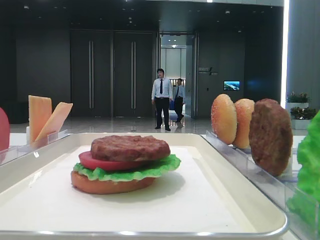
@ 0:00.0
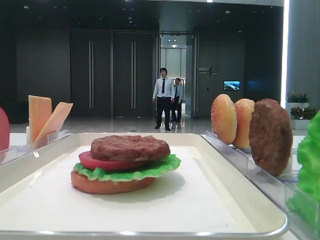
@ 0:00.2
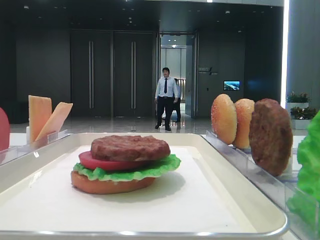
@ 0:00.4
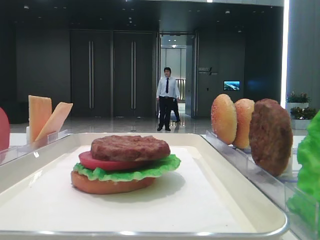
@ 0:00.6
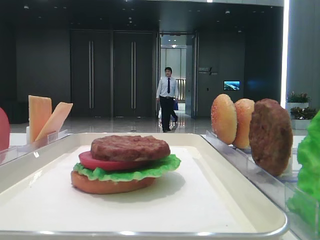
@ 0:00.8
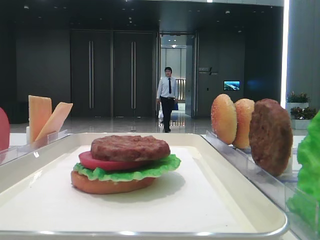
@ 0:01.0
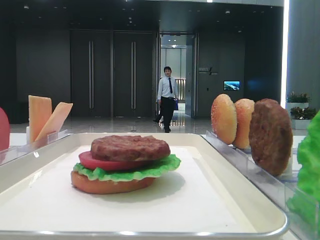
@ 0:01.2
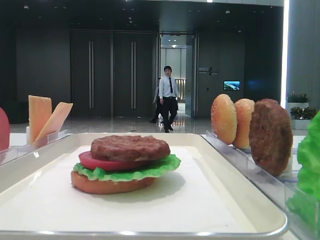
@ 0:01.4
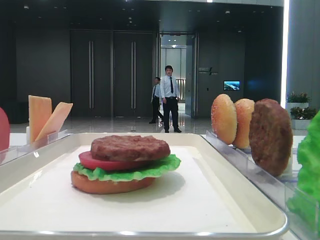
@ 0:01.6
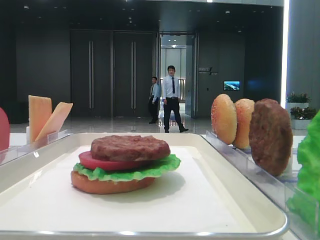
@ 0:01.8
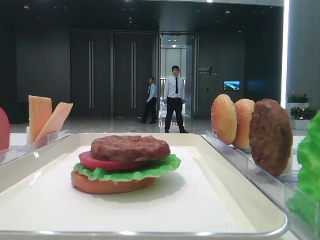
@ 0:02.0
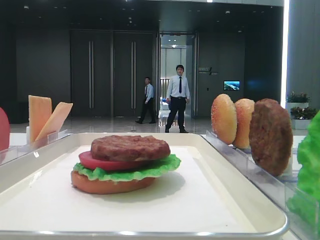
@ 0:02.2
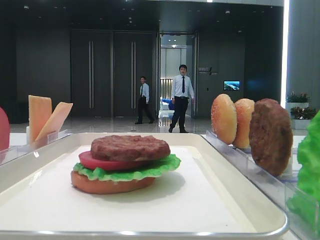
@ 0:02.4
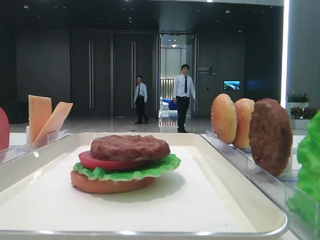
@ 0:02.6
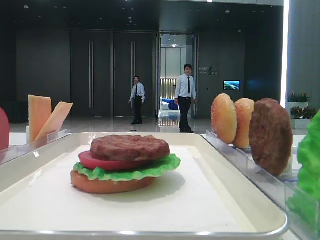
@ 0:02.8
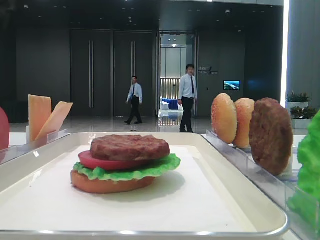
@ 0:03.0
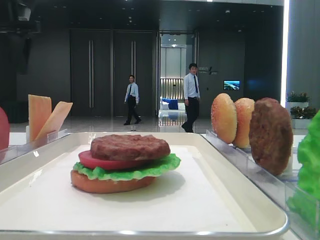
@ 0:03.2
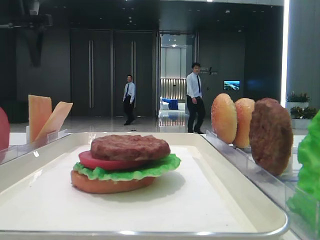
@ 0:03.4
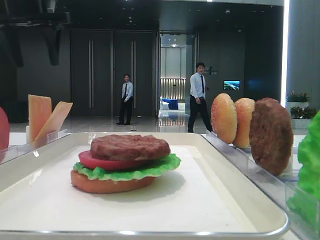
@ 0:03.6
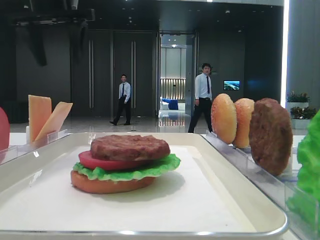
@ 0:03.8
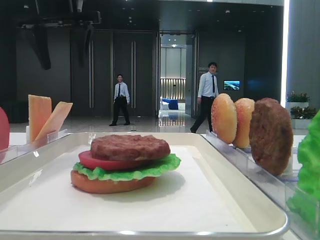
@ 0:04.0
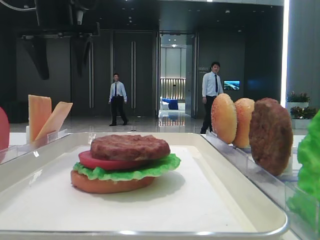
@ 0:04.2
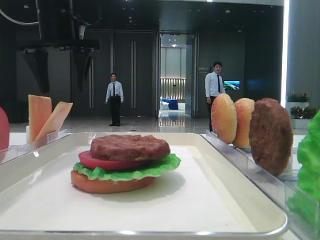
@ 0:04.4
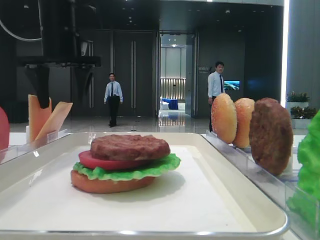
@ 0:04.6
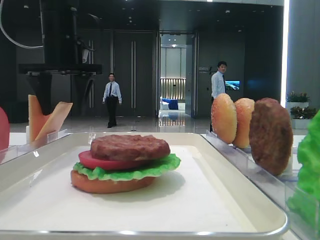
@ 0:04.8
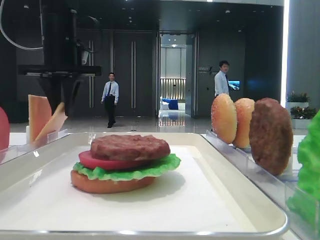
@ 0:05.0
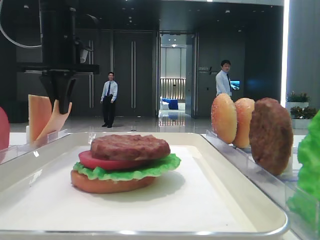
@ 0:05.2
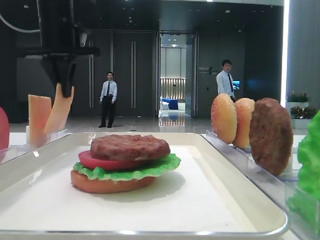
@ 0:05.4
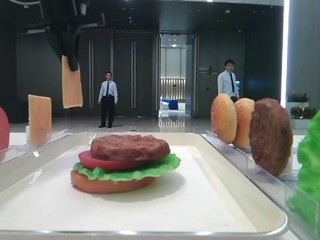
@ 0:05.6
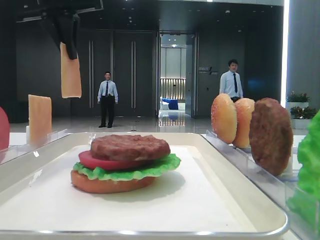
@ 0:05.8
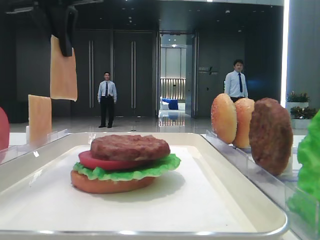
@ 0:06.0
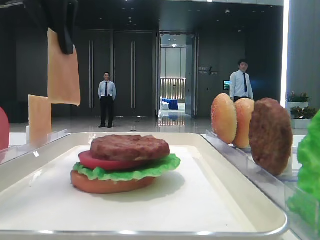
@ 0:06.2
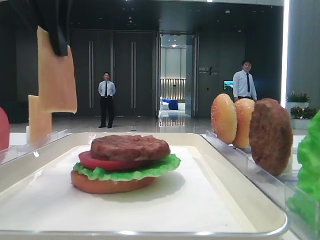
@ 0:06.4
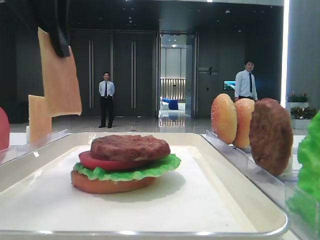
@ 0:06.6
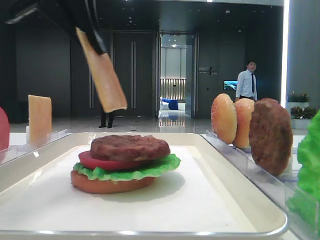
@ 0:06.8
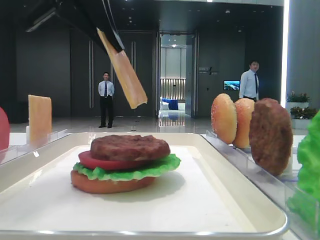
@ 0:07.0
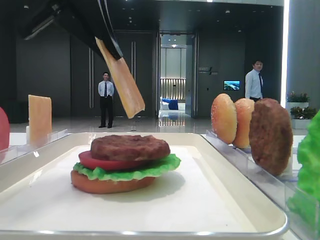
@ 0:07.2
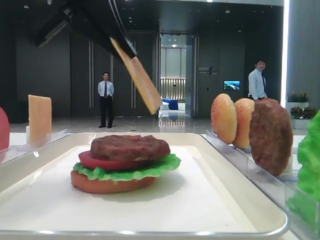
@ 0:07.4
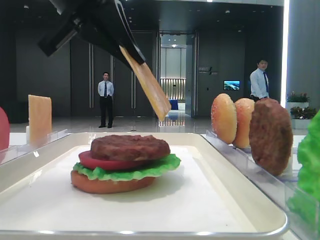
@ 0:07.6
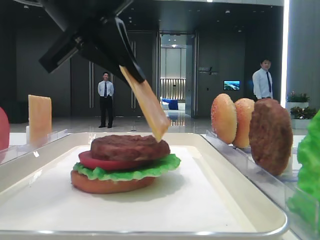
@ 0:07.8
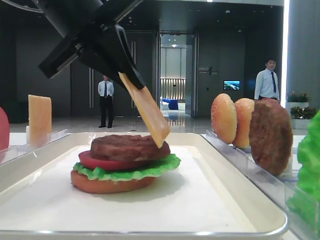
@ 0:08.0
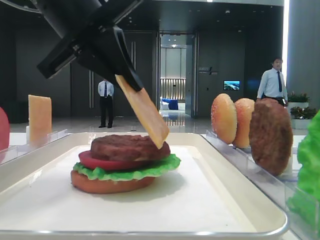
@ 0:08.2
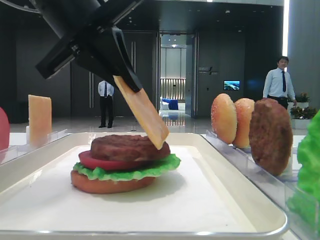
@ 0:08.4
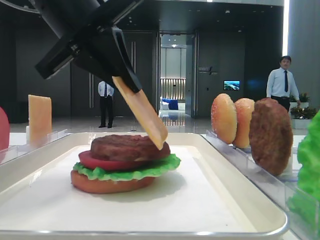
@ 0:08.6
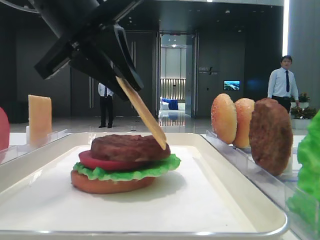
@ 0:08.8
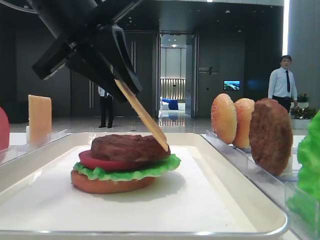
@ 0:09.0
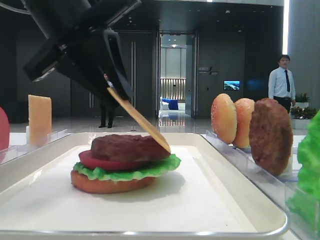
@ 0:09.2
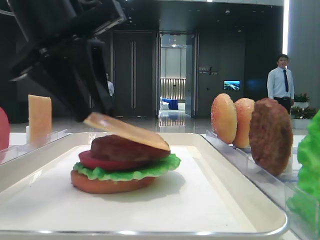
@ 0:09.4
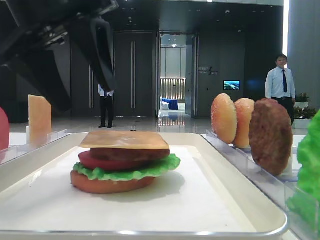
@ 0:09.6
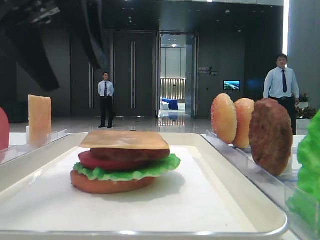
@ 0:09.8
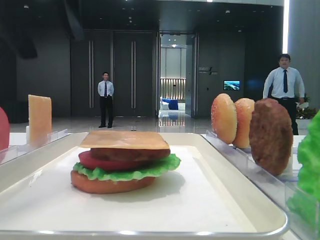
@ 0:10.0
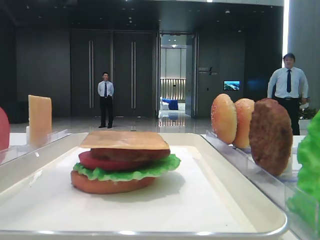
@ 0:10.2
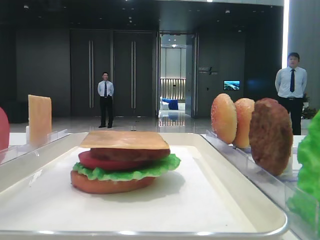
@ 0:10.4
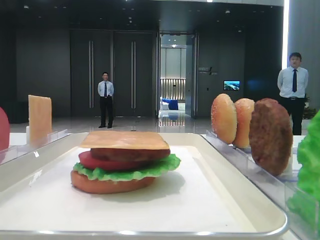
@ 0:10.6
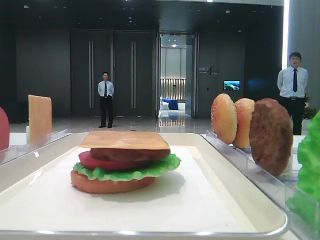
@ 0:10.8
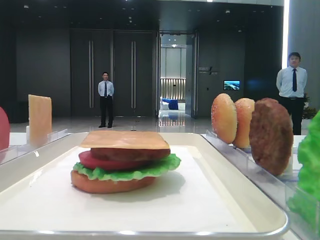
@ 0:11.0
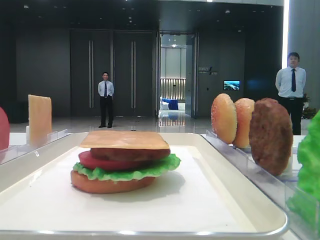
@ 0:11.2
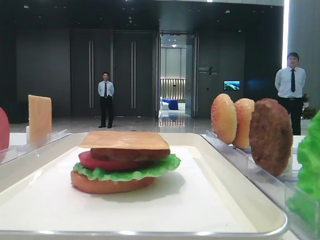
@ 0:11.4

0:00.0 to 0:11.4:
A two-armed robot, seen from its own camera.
Step, 0:00.0 to 0:05.0: Pick up the cheese slice with the left hand.
Step, 0:05.2 to 0:09.4: Place the cheese slice on the patty with the left hand.
0:01.4 to 0:02.8: The left gripper moves forward, roughly 30 cm.
0:02.8 to 0:04.2: The left gripper is displaced forward and to the right by approximately 20 cm.
0:04.2 to 0:05.6: The left gripper closes its fingers.
0:05.6 to 0:07.2: The left gripper shifts approximately 15 cm backward.
0:07.2 to 0:08.6: The grippers stay close to where they were, moving slightly.
0:08.6 to 0:10.0: The left gripper heads upward and to the left, covering about 10 cm, and opens.
0:10.0 to 0:11.4: The left gripper goes about 20 cm to the left.

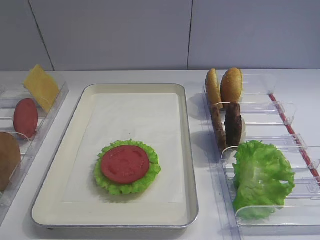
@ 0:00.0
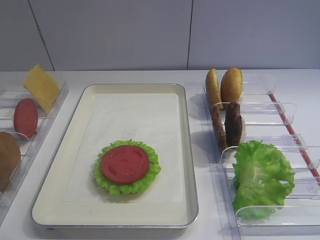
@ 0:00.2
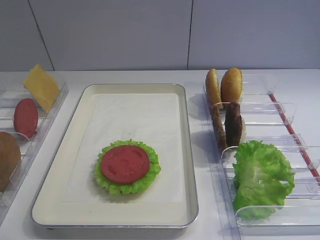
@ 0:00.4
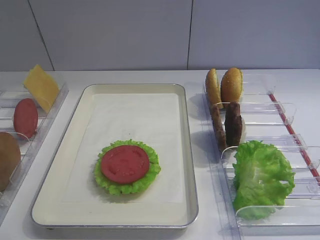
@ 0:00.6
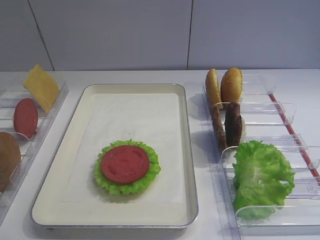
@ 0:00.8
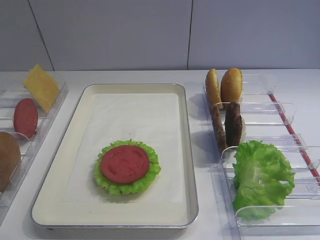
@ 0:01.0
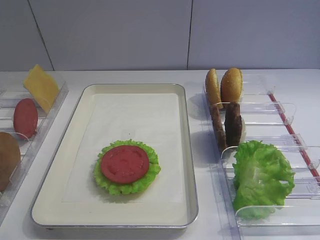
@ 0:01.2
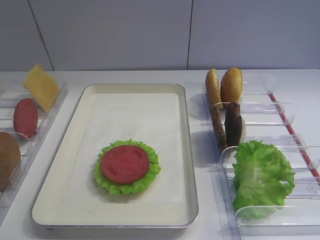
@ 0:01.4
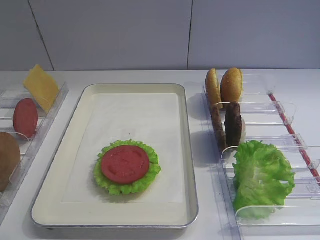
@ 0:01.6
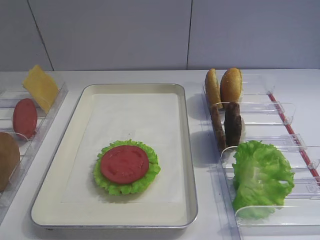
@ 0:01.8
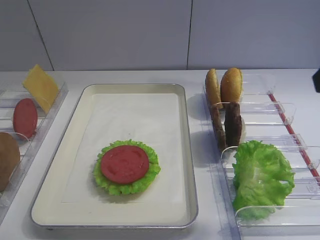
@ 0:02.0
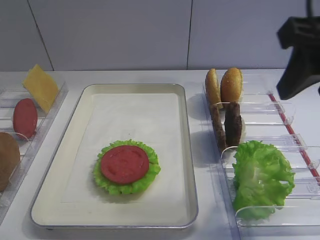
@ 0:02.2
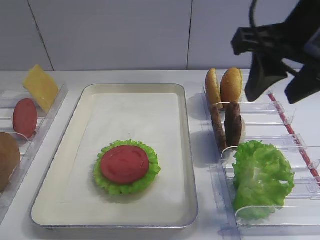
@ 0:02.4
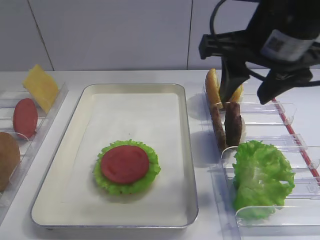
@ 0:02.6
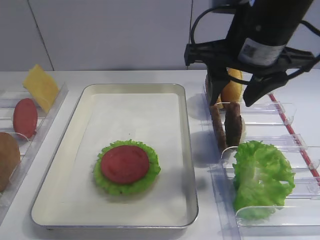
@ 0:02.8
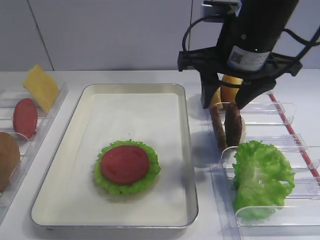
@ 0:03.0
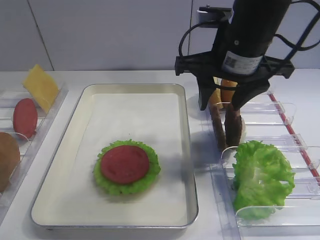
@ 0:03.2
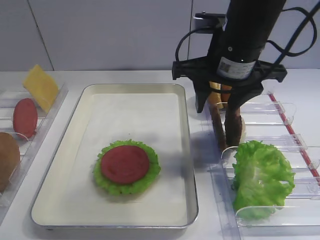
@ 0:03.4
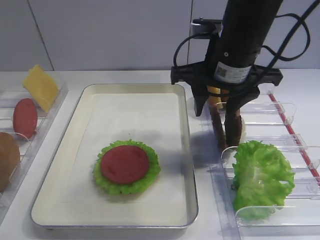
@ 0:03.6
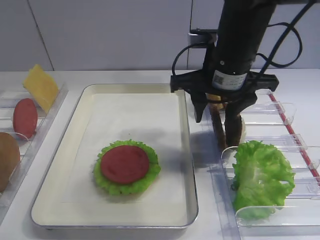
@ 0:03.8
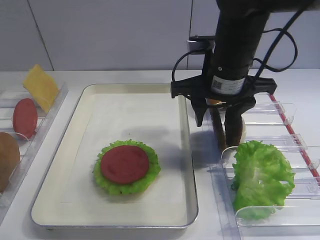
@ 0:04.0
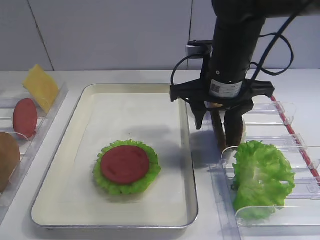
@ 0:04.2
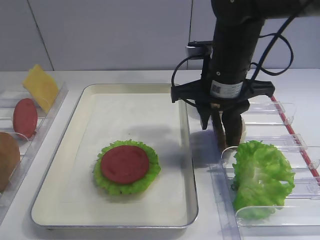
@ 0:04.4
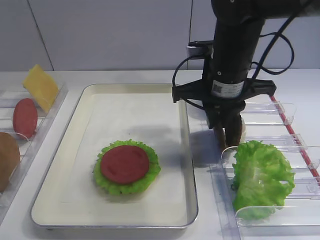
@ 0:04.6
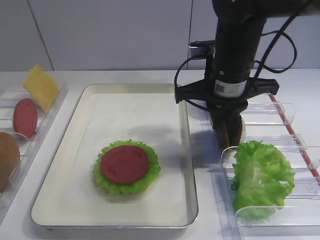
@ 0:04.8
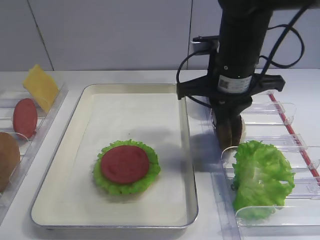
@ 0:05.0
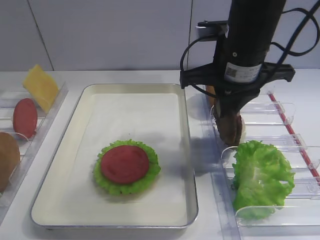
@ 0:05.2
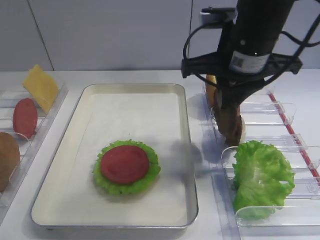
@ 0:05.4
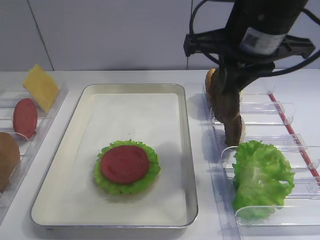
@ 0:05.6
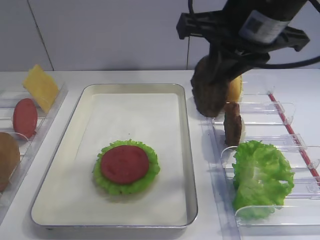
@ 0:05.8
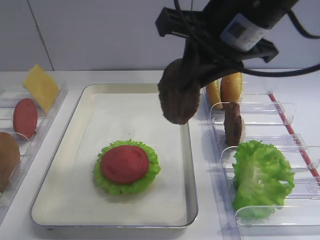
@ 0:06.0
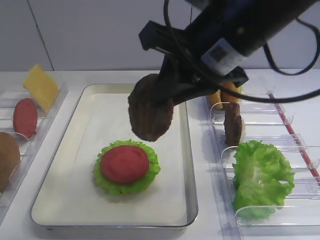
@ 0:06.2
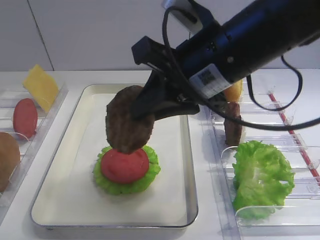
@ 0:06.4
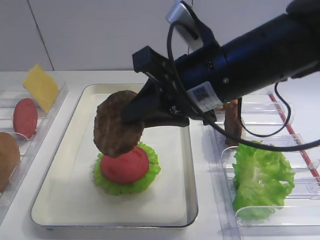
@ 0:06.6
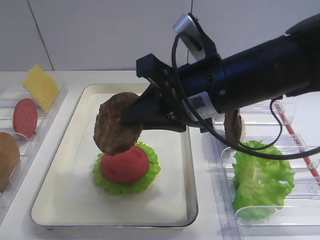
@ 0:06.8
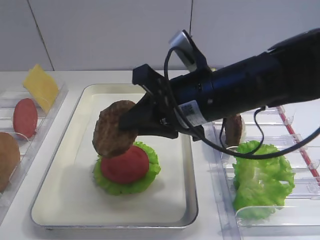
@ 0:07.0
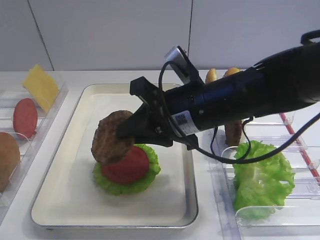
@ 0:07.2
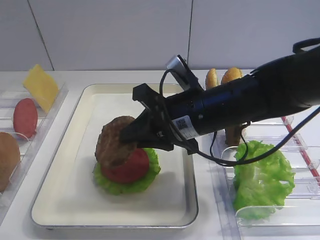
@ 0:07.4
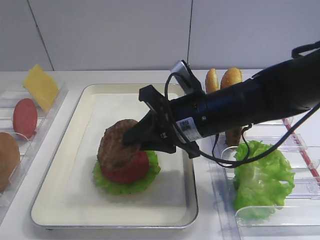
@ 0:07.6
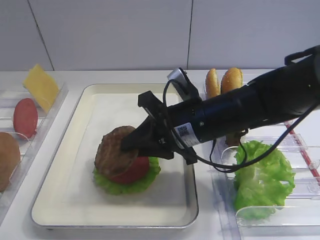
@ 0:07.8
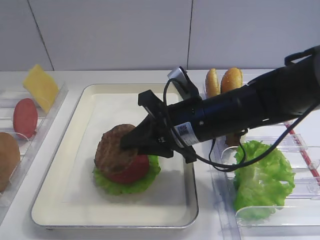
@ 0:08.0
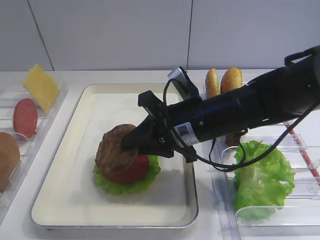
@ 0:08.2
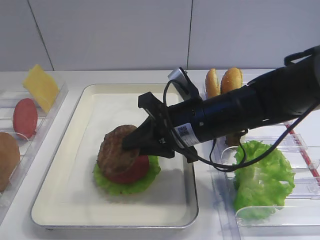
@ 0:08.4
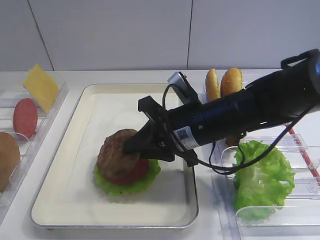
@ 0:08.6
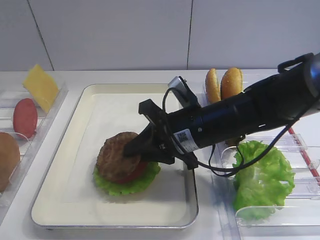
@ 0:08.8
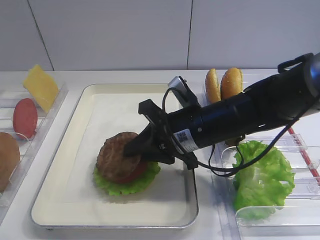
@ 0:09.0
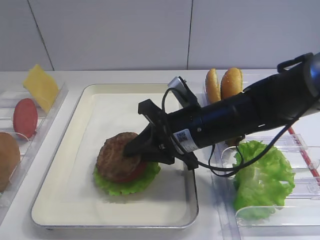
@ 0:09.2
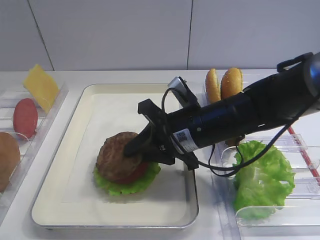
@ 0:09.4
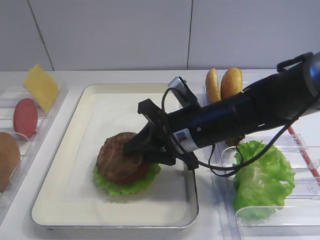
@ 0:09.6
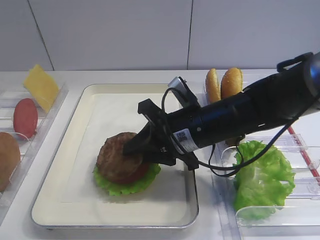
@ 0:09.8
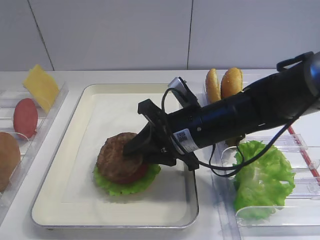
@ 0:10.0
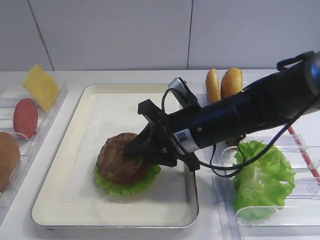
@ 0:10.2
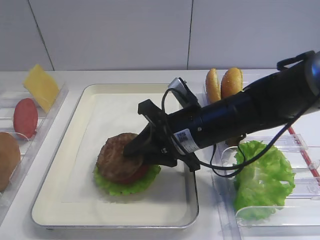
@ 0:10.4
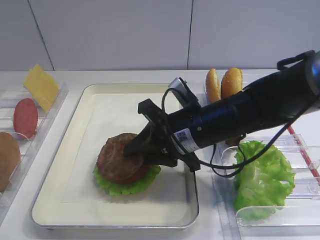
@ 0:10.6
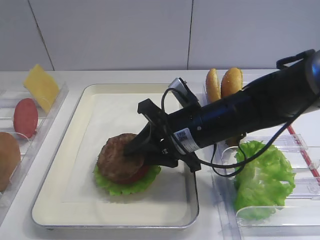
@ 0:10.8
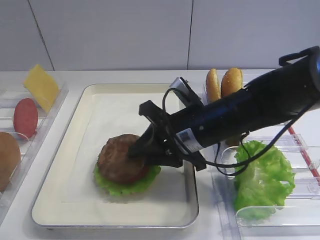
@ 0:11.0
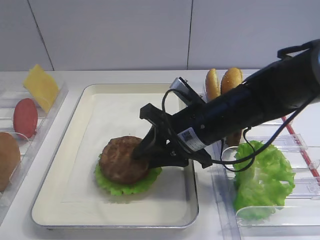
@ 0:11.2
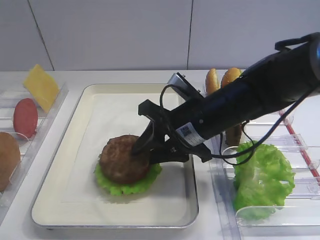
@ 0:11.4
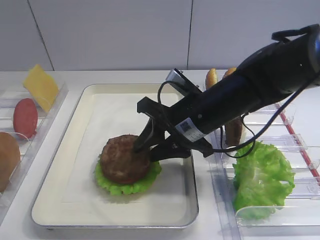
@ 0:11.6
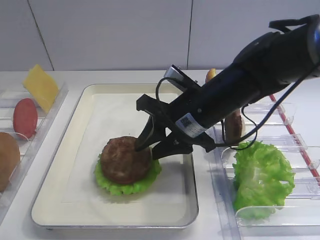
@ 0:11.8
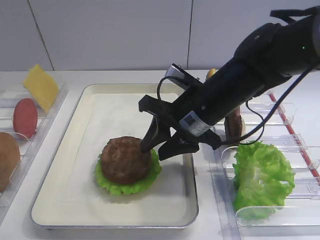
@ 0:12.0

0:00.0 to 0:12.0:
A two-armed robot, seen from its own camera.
Step, 0:00.0 to 0:05.6: Pick up the cutlet with the right gripper.
Step, 0:05.8 to 0:11.8: Place the cutlet on the tomato slice with the right gripper.
0:01.6 to 0:03.0: The right gripper travels forward and to the left by approximately 25 cm.
0:03.0 to 0:04.4: The right gripper heads downward, covering roughly 5 cm.
0:04.4 to 0:06.0: The right gripper moves upward and backward, approximately 15 cm, and closes up.
0:06.0 to 0:07.6: The right gripper goes about 15 cm downward.
0:07.6 to 0:09.0: There are only small adjustments of the grippers.
0:09.0 to 0:10.4: Both grippers stay about where they are.
